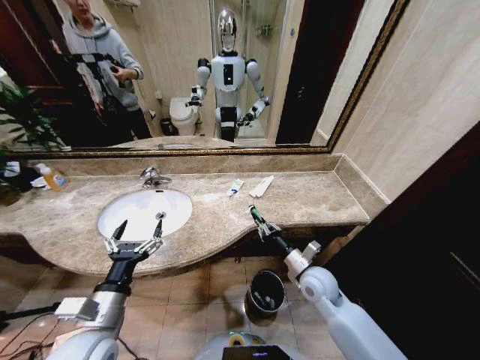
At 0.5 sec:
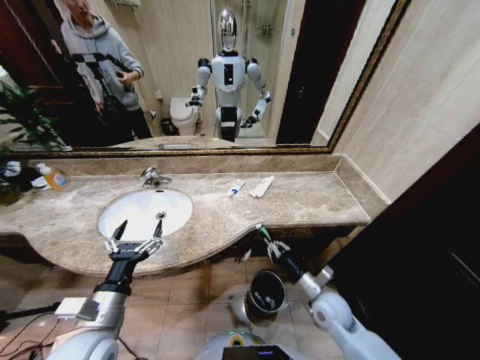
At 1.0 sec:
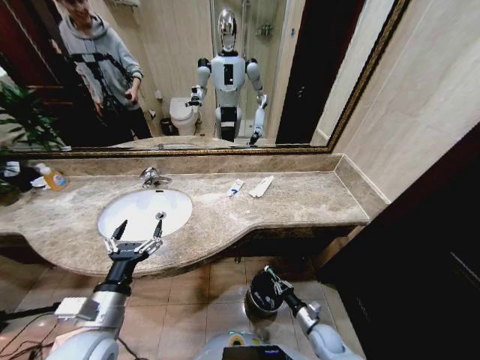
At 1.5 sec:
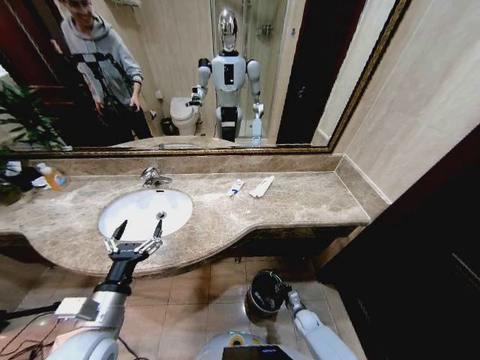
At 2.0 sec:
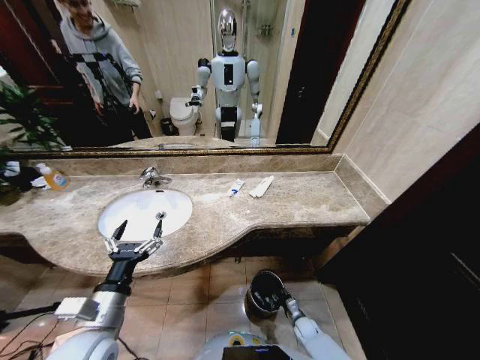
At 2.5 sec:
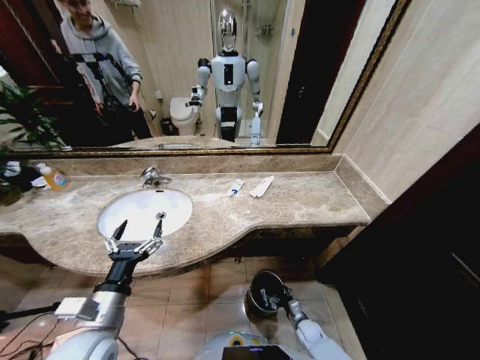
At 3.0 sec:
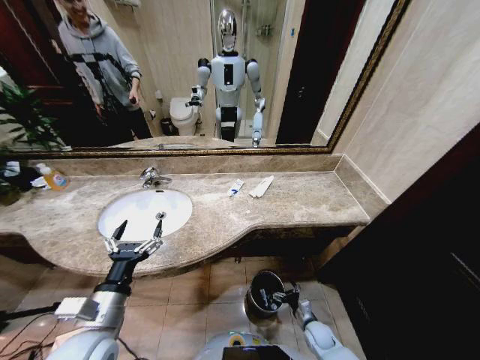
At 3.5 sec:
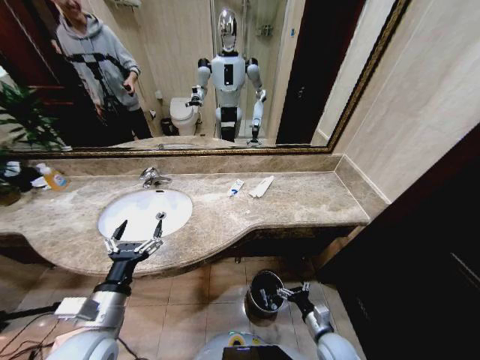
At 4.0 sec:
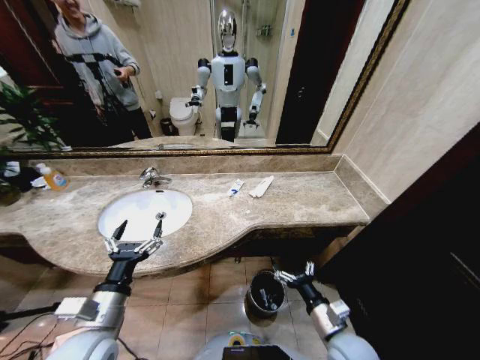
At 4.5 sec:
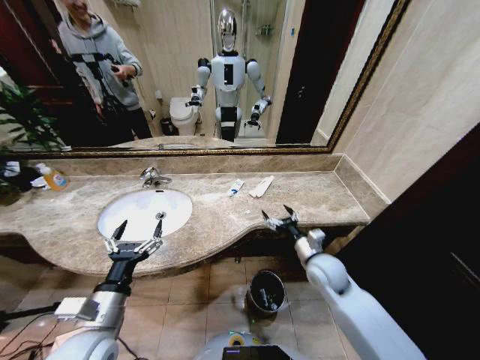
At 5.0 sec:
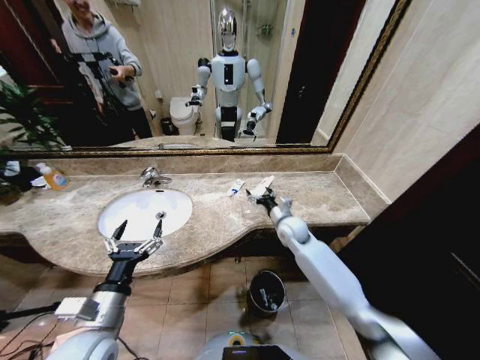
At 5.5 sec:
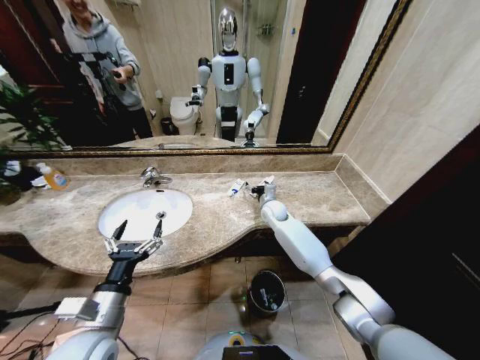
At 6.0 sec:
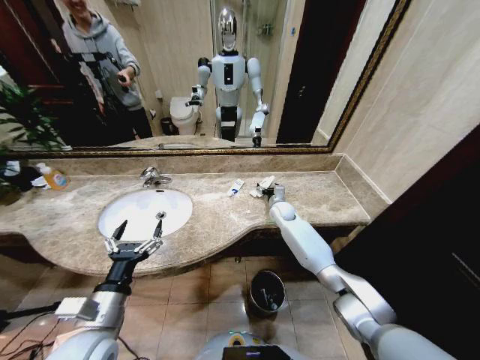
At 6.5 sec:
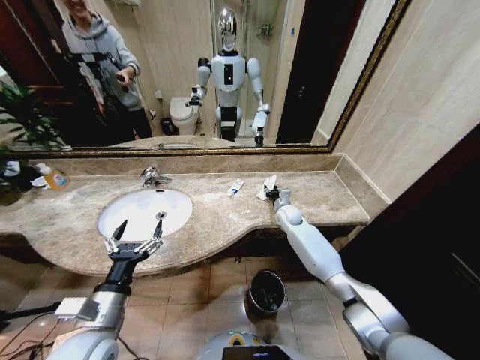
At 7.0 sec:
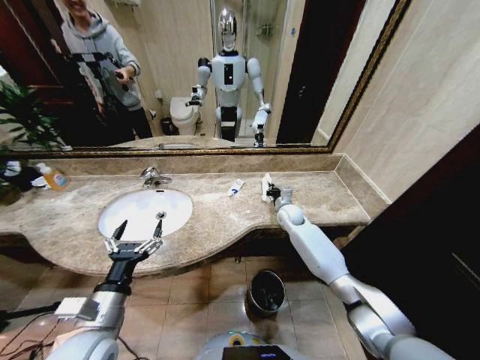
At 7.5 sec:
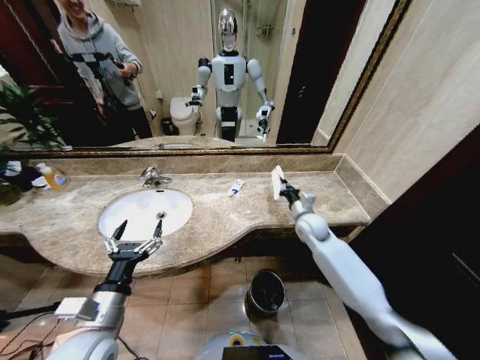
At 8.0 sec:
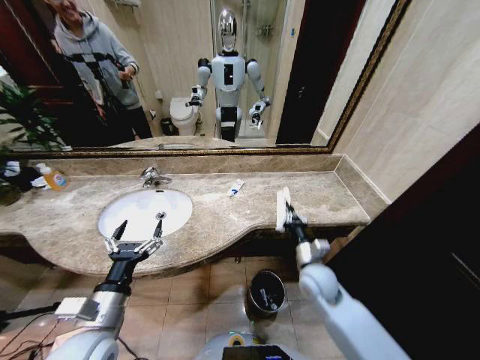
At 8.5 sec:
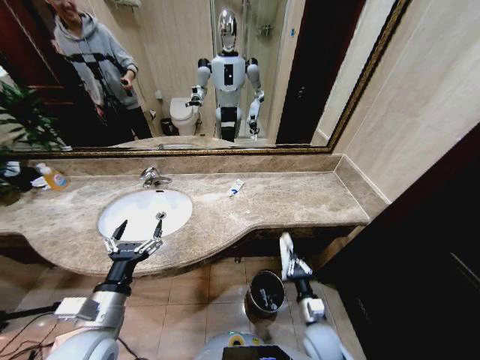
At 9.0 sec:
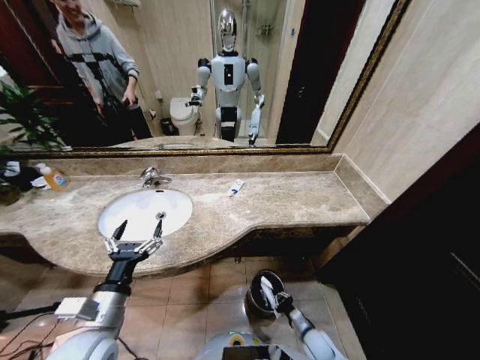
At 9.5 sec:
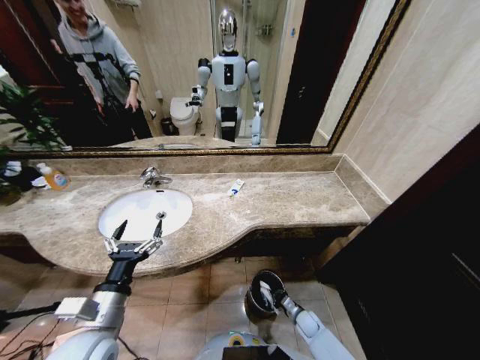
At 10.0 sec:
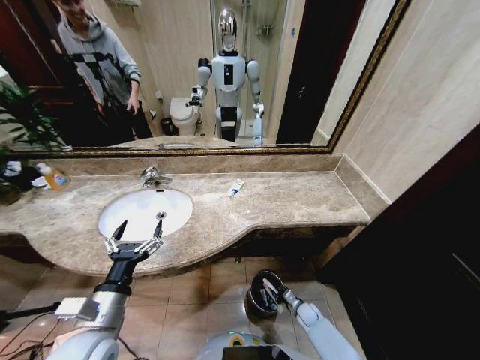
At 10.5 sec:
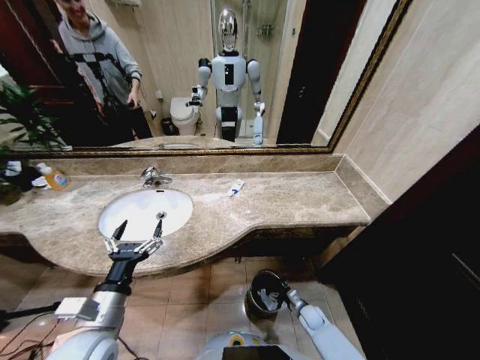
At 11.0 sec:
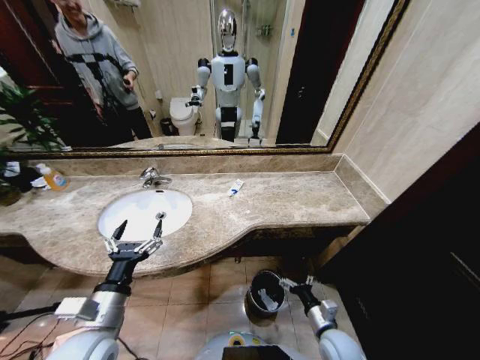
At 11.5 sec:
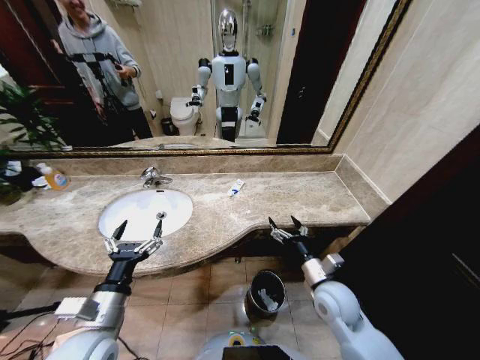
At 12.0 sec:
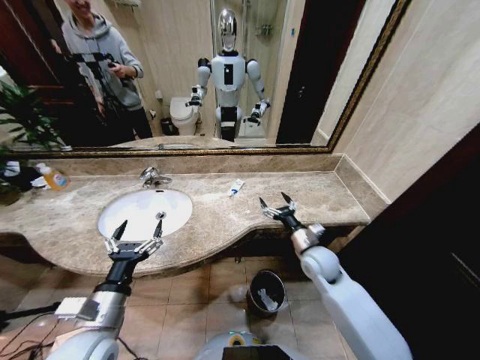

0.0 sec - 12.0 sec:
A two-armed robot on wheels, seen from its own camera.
Task of the whole recording: Pick up the trash from the sink and place it in the trash bin.
0.0 sec - 2.0 sec: The right gripper moves downward, approximately 35 cm.
2.0 sec - 4.0 sec: The right gripper moves upward, about 35 cm, and opens.
4.0 sec - 6.0 sec: The right gripper is displaced forward by about 40 cm.
6.0 sec - 8.0 sec: The right gripper shifts about 25 cm backward, and closes its fingers.
8.0 sec - 10.0 sec: The right gripper moves downward, approximately 35 cm.
10.0 sec - 12.0 sec: The right gripper goes roughly 35 cm upward, and opens up.

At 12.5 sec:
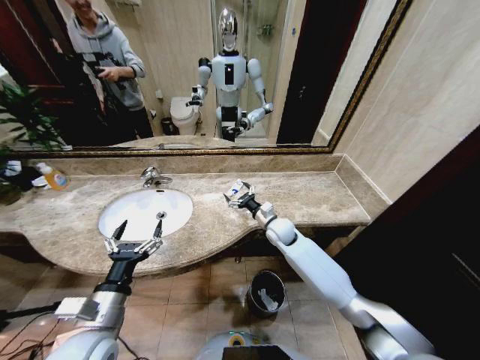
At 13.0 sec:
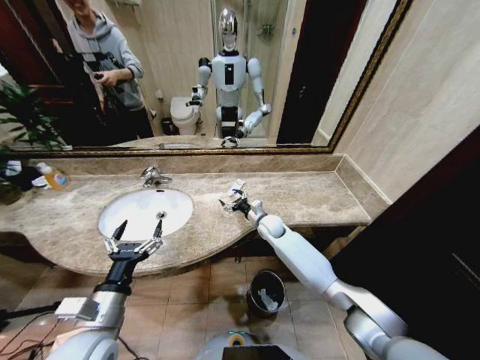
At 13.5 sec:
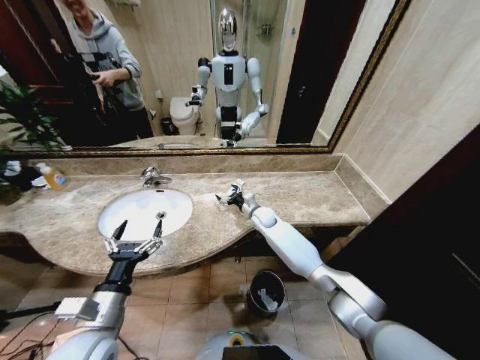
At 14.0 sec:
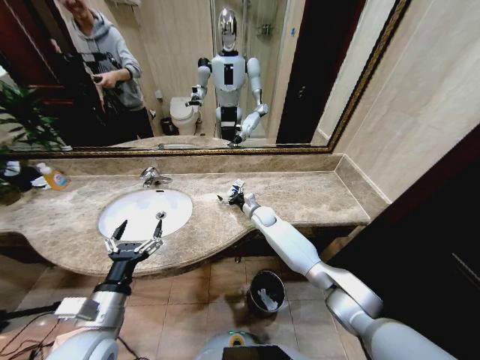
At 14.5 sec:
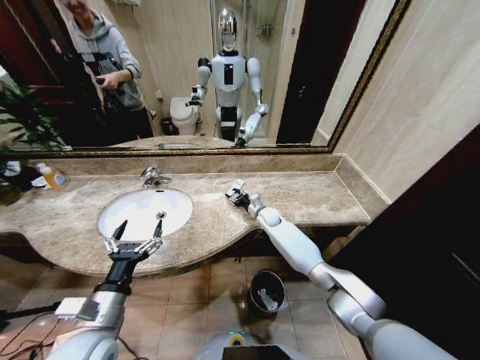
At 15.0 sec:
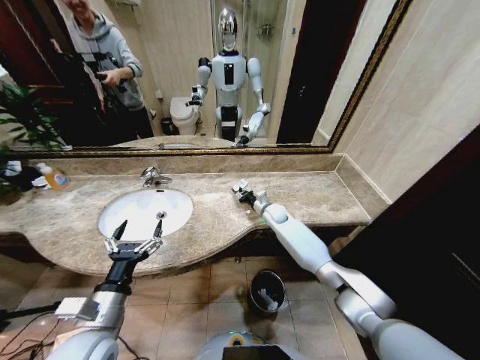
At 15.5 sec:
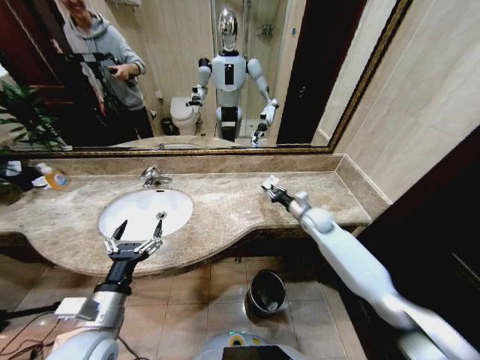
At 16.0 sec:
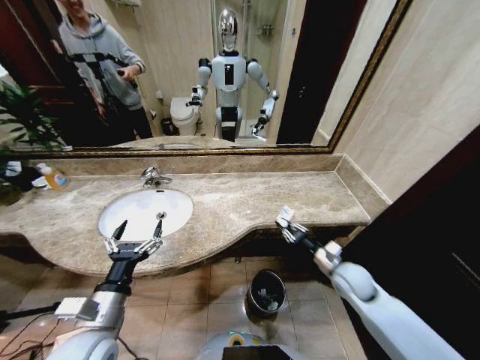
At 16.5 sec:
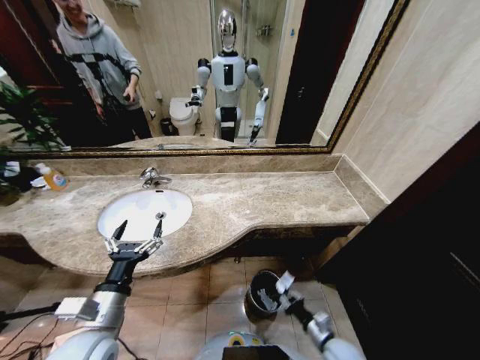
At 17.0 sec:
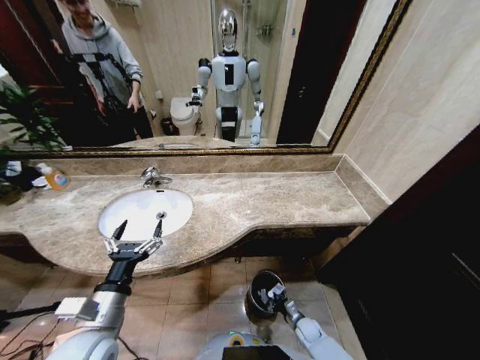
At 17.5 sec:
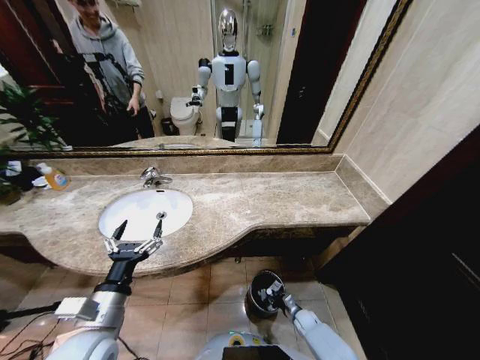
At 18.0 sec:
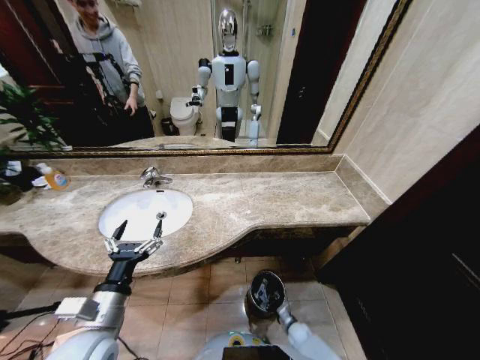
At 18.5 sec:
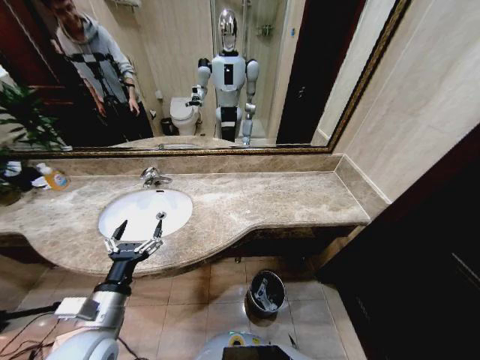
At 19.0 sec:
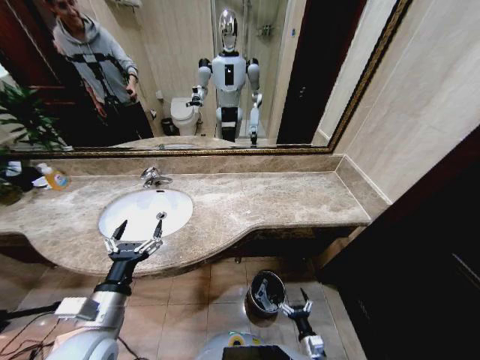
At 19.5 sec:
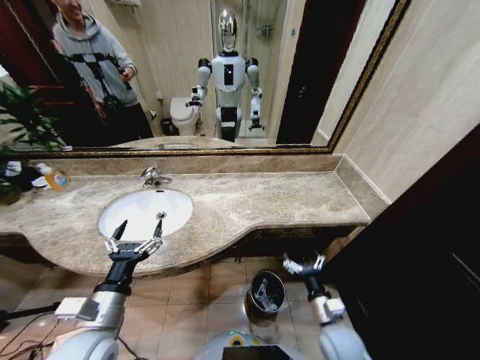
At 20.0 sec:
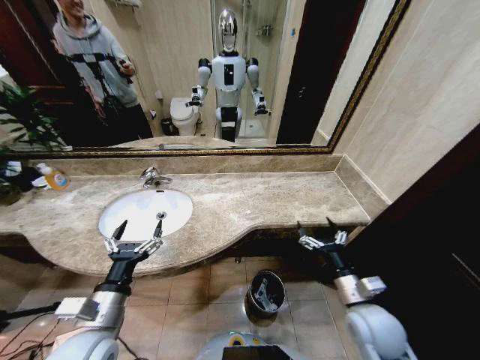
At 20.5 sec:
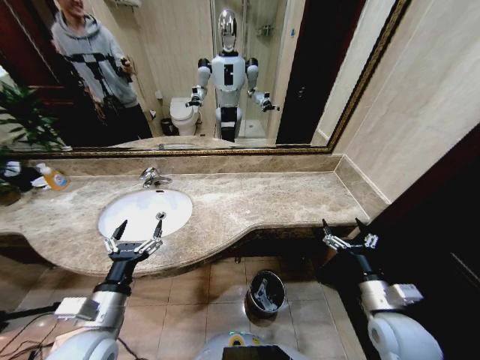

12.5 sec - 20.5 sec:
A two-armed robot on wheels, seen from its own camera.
Task of the whole recording: Pick up the trash from the sink and place it in the trash bin.
12.5 sec - 14.5 sec: The right gripper shifts approximately 10 cm forward, and closes.
14.5 sec - 16.5 sec: The right gripper moves backward, approximately 40 cm, and closes.
16.5 sec - 18.5 sec: The right gripper heads downward and backward, covering approximately 25 cm, and opens its fingers.
18.5 sec - 20.5 sec: The right gripper heads upward, covering approximately 50 cm.
